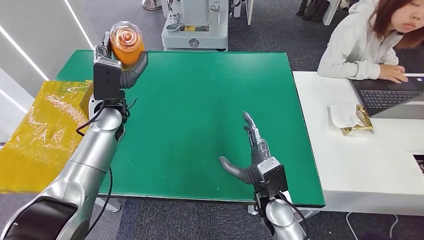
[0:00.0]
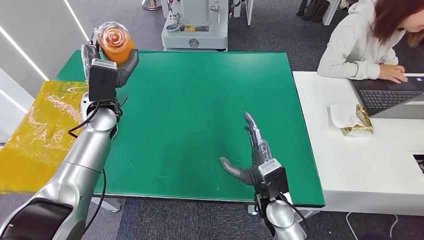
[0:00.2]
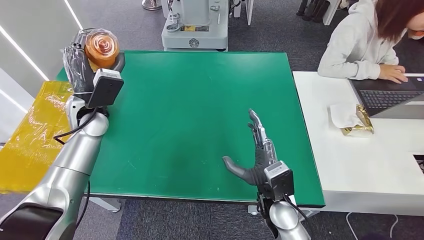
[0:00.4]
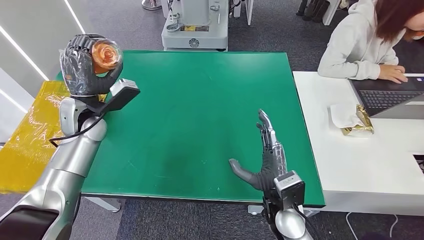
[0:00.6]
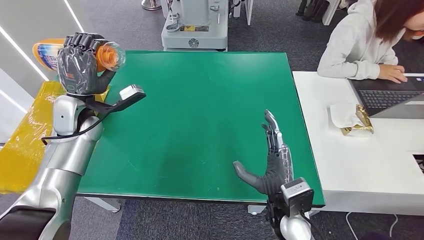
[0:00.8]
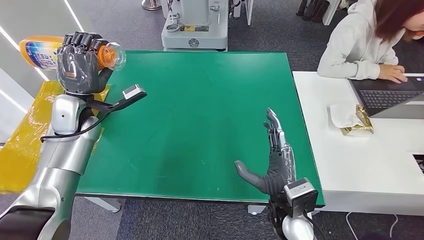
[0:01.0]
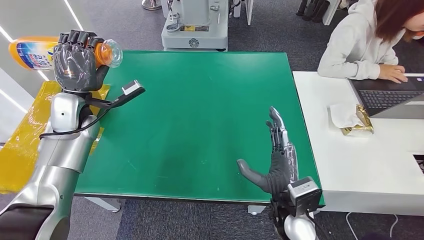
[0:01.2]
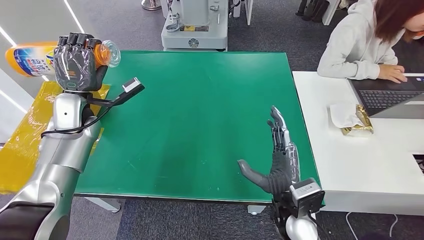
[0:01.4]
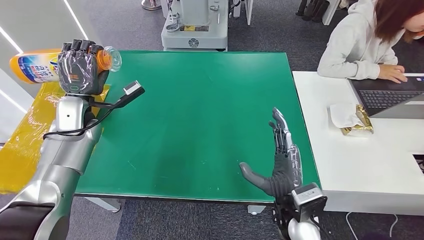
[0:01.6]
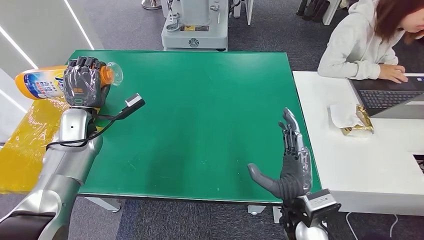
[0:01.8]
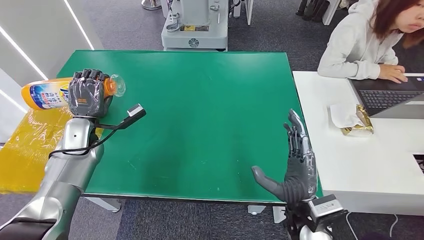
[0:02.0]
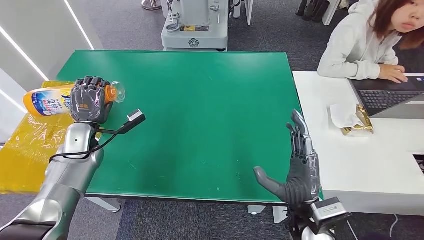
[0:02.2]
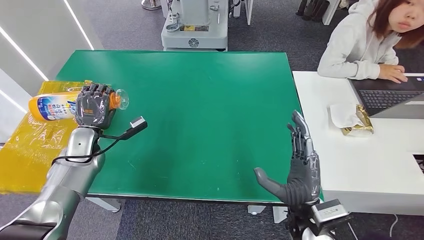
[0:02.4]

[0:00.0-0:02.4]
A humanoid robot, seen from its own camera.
Step, 0:00.0 to 0:02.4: Turn the bottle to the front side.
0:01.2 to 0:02.4: The left hand heads downward, covering roughly 10 cm.
